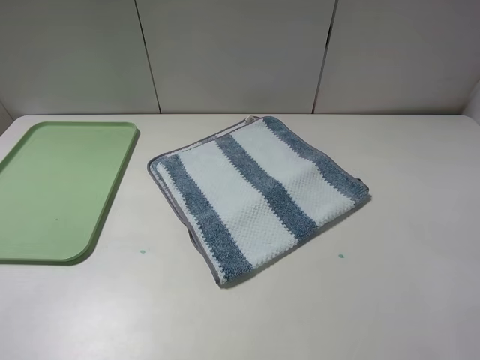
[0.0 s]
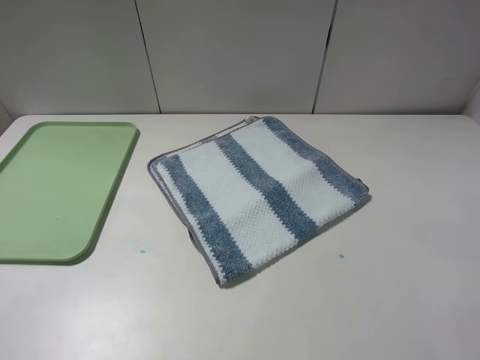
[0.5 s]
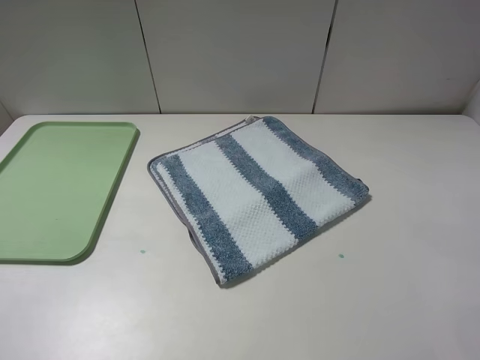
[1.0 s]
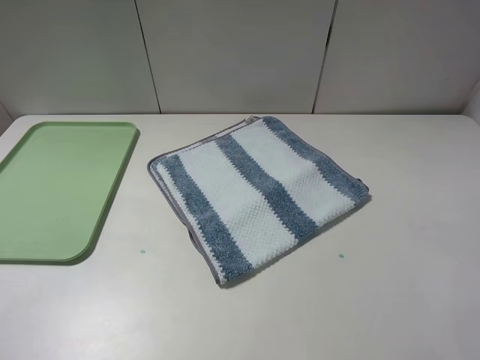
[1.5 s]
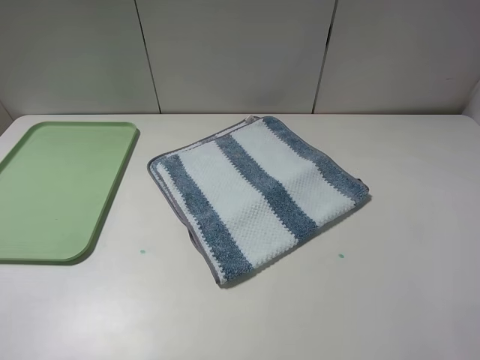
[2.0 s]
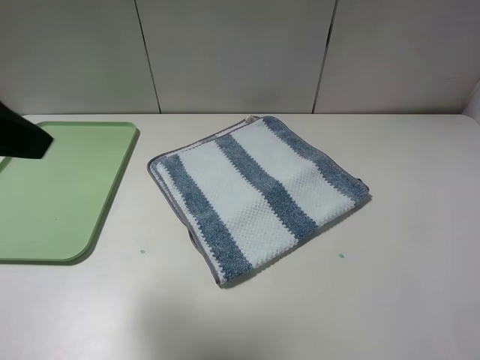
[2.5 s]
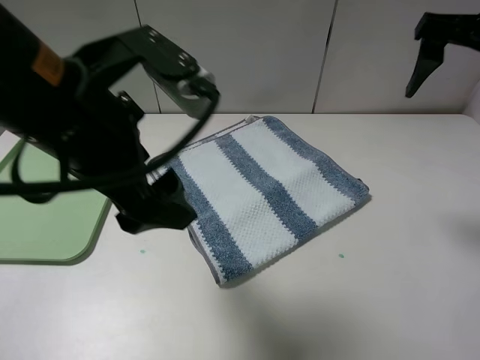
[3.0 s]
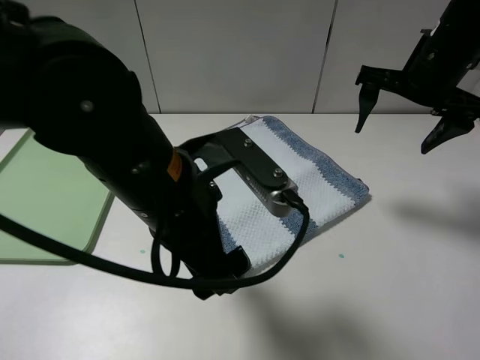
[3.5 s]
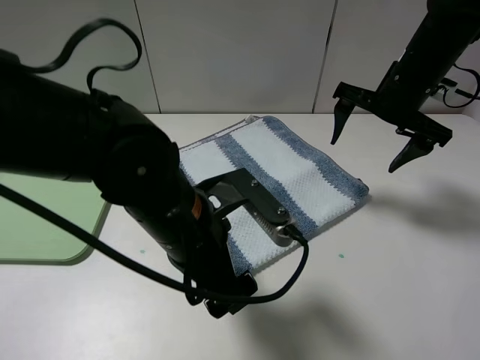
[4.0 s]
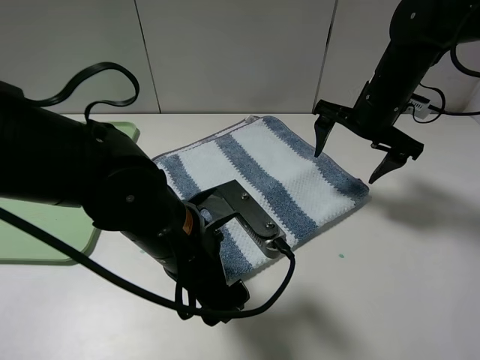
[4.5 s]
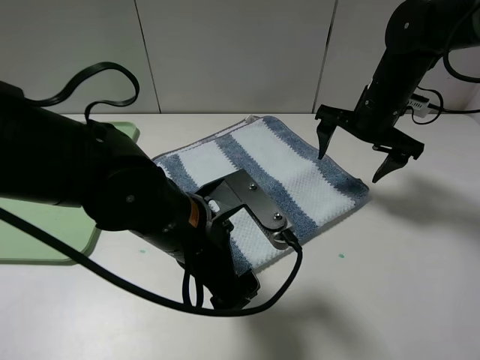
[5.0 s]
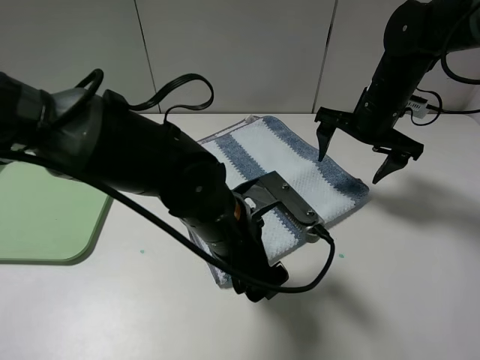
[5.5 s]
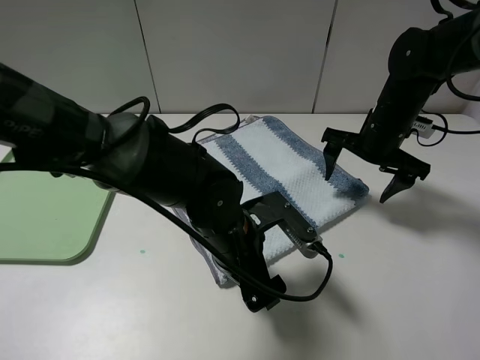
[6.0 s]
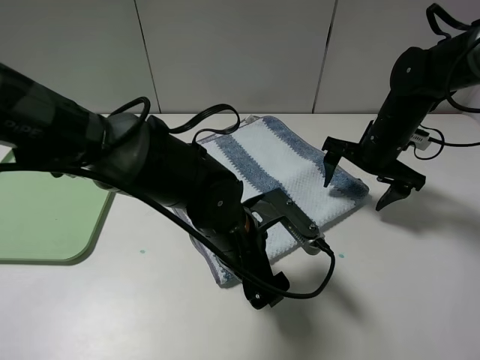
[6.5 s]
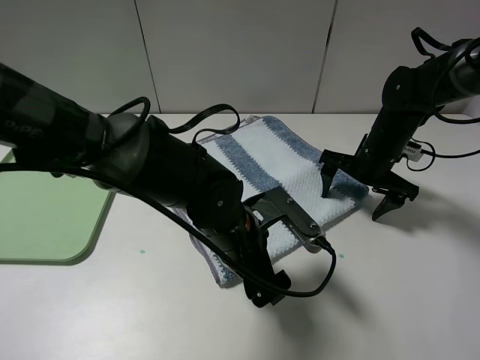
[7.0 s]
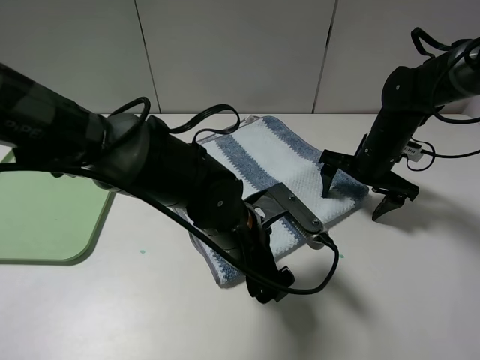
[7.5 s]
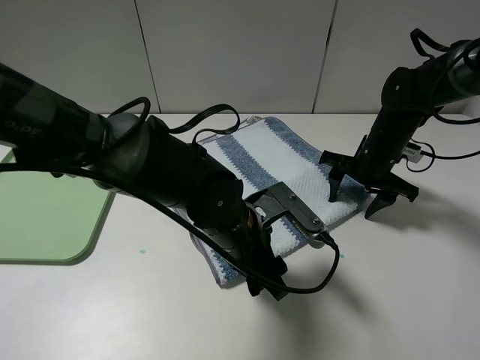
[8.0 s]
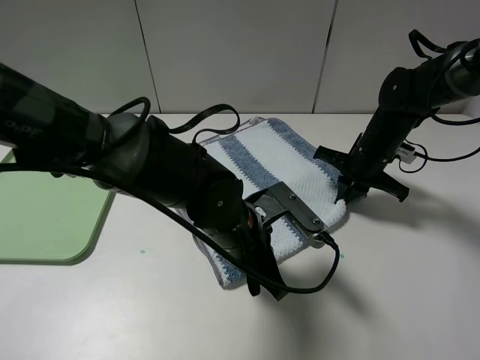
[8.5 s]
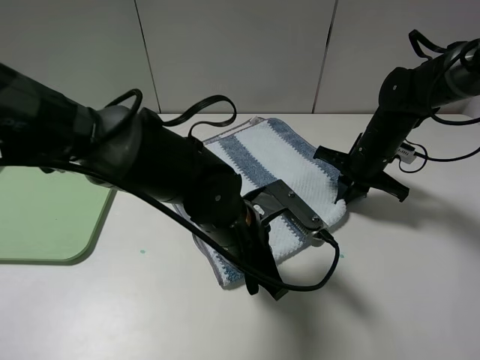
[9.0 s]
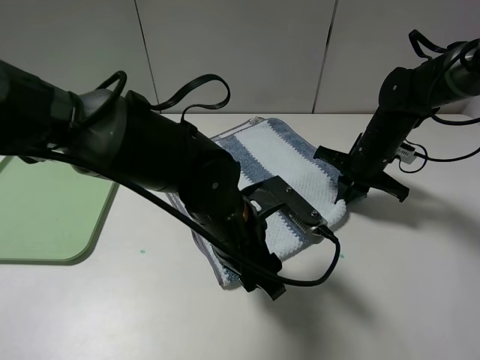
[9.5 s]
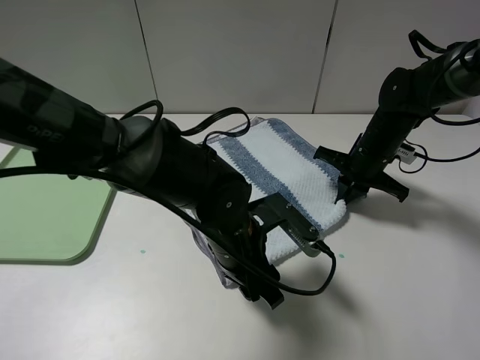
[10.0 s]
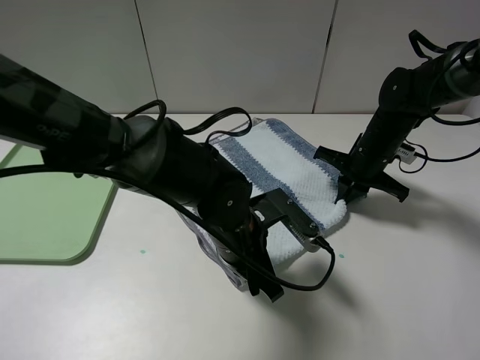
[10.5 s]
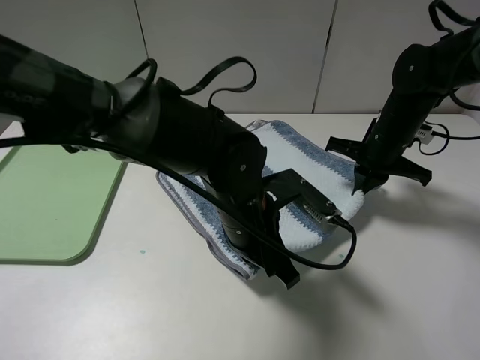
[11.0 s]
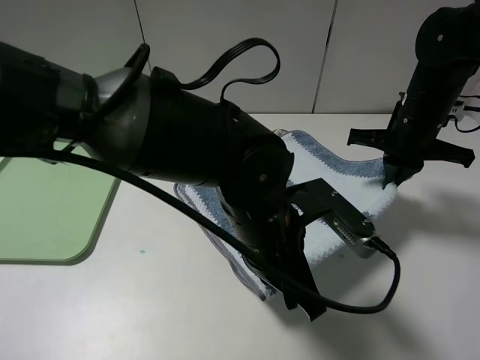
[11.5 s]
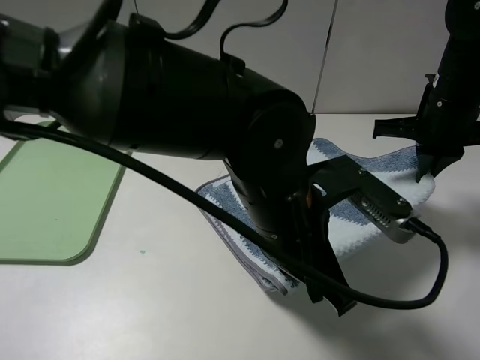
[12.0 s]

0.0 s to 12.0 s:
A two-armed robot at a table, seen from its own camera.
Step, 0.0 to 9.5 s: Grasp the blue white towel with the right gripper.
2.0 to 4.0 s: The left gripper moves to the right, downward and forward, approximately 35 cm; the right gripper goes some 30 cm forward and downward.
4.0 to 6.0 s: The two grippers go roughly 5 cm downward.
6.0 to 8.0 s: The left gripper closes up. The right gripper moves downward, roughly 5 cm, and closes.
8.0 to 10.0 s: The left gripper closes, then opens again; the right gripper closes up.
10.0 to 12.0 s: Both grippers move upward, roughly 10 cm. The left gripper closes its fingers.

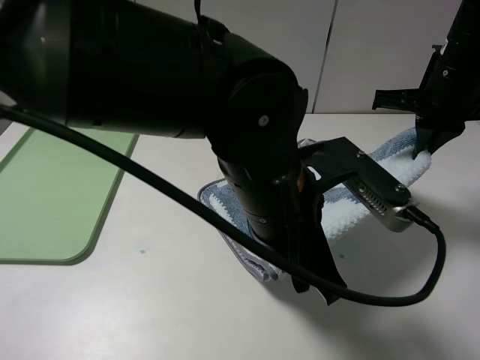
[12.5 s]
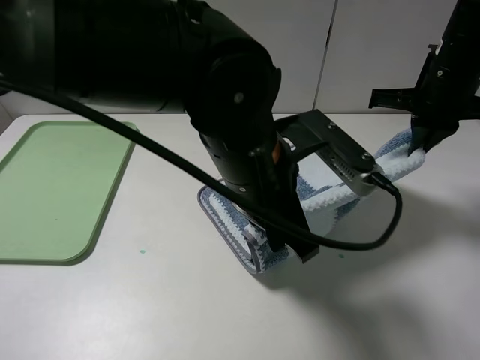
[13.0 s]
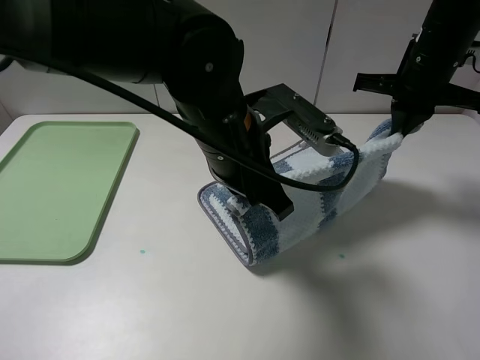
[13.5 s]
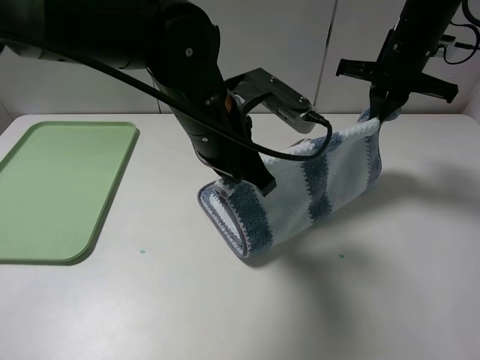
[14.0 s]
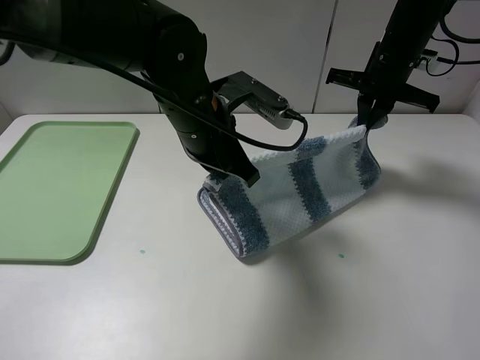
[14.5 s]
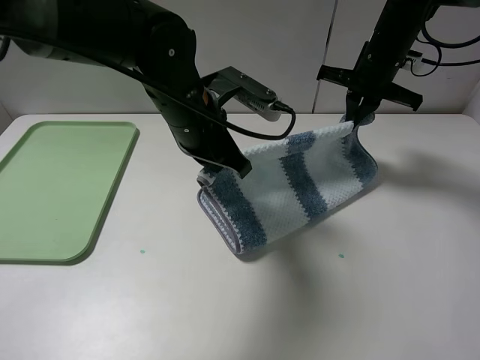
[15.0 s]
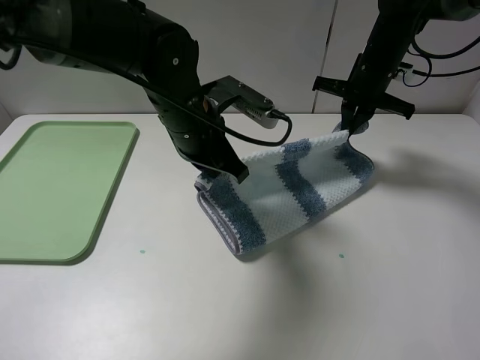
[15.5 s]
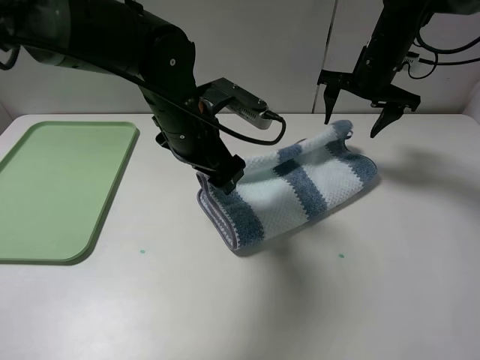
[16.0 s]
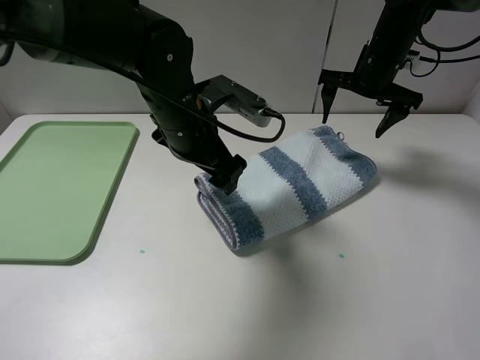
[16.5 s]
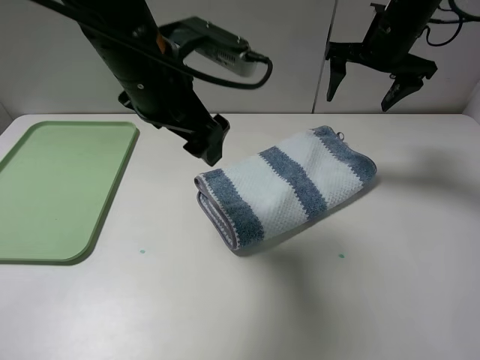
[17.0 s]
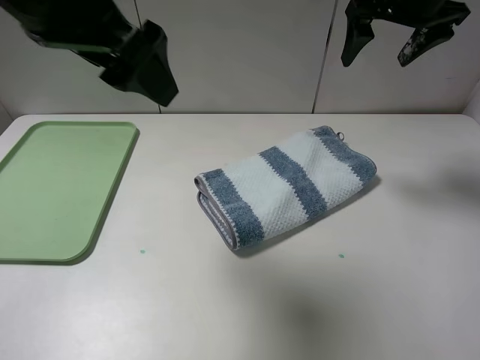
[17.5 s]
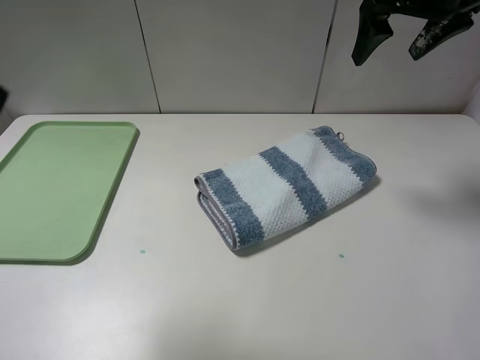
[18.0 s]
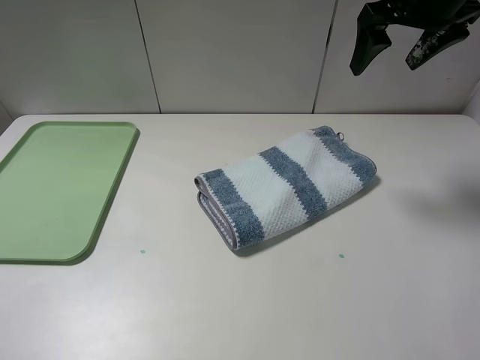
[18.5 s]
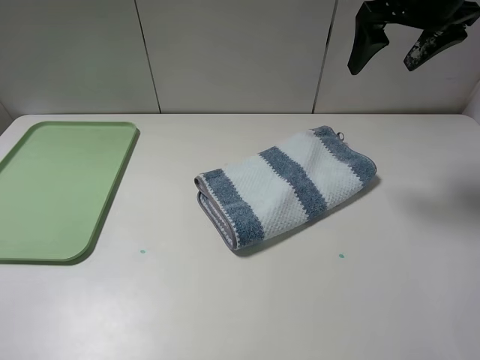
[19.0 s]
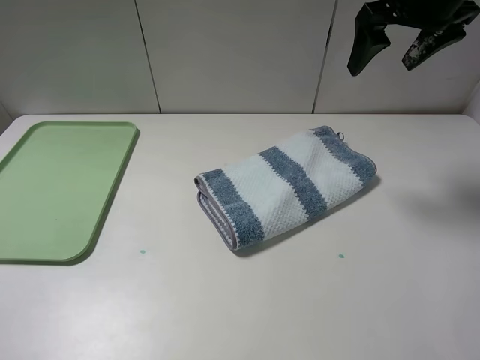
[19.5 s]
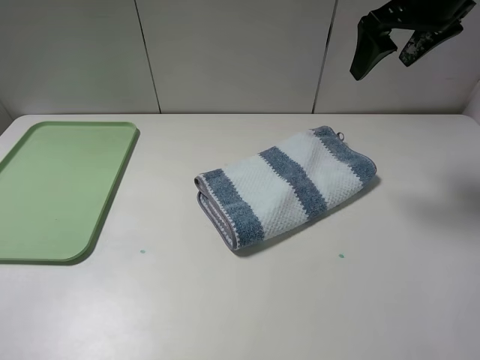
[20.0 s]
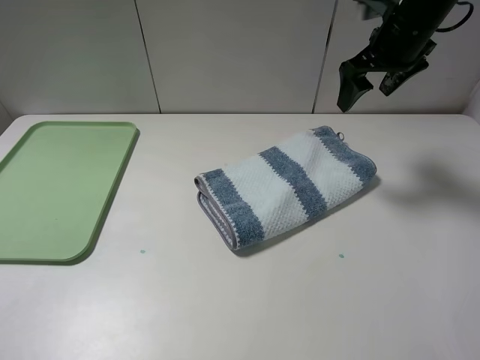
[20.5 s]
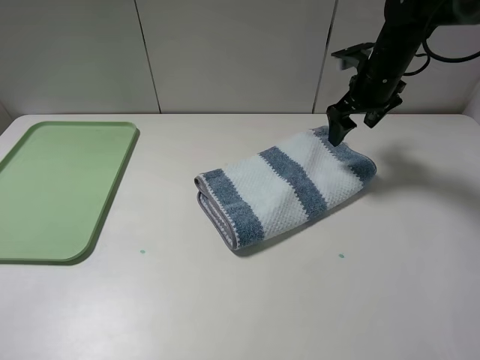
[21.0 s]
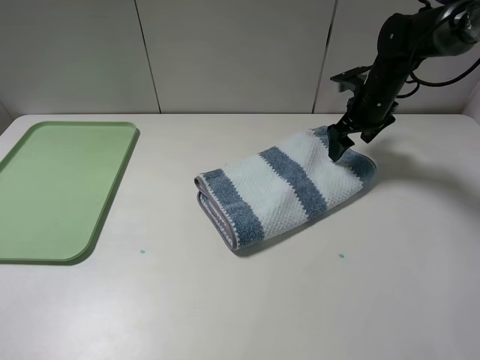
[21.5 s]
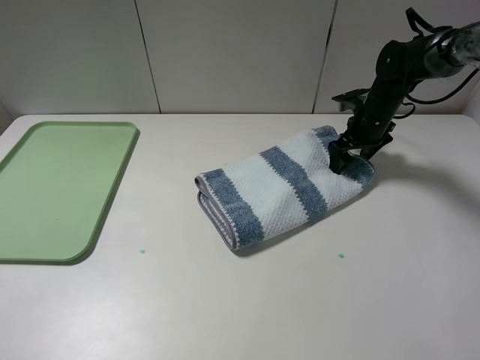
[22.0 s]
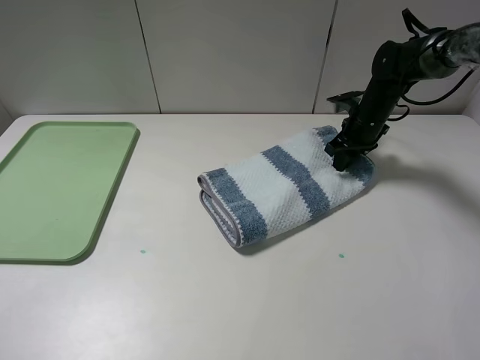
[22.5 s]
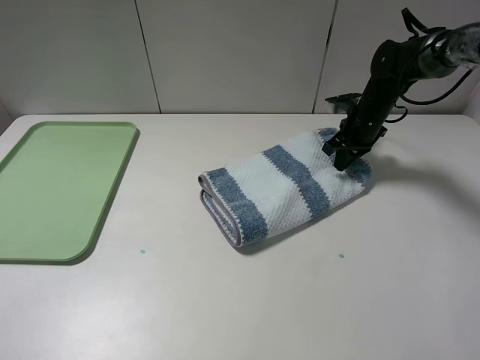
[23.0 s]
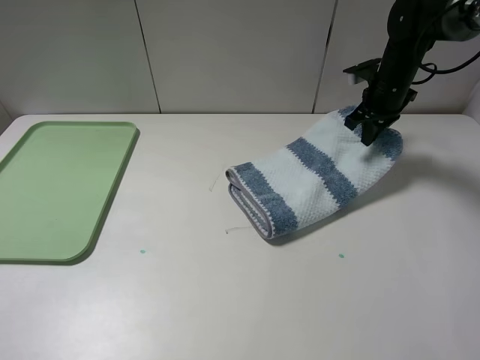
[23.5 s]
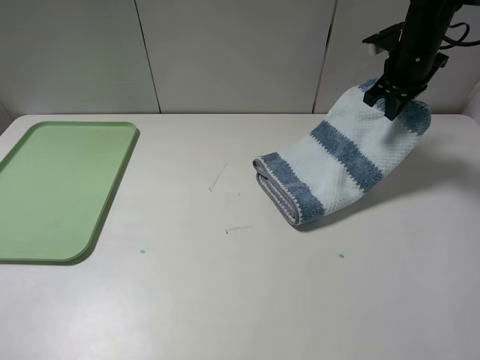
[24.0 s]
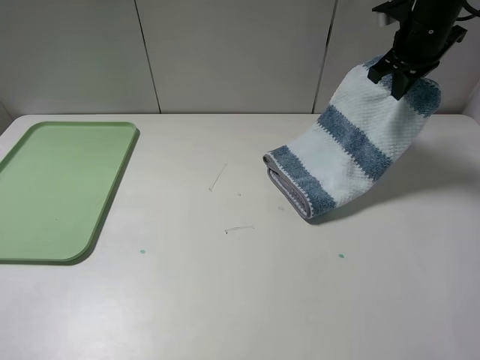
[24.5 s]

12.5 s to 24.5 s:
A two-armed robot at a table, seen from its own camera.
Step, 12.5 to 16.0 s: Fold the blue white towel upwards with the left gripper.
Step, 16.5 to 23.0 s: Grasp the blue white towel with the right gripper.
12.5 to 14.5 s: The right gripper travels forward by some 10 cm, while the left gripper travels forward and to the left by approximately 15 cm.
14.5 to 16.5 s: The right gripper opens up. Meanwhile the left gripper opens its fingers.
16.5 to 18.5 s: The left gripper travels backward, to the left and upward by some 40 cm; the right gripper moves upward and backward, some 15 cm.
18.5 to 20.5 s: The right gripper goes about 5 cm downward.
20.5 to 22.5 s: The right gripper is displaced downward by roughly 15 cm, and closes.
22.5 to 24.5 s: The right gripper heads upward, covering roughly 15 cm.

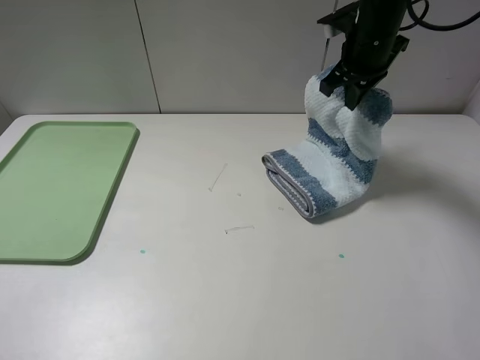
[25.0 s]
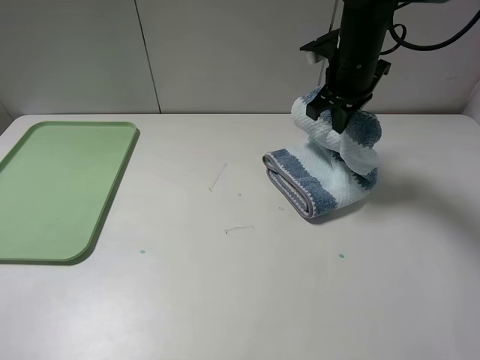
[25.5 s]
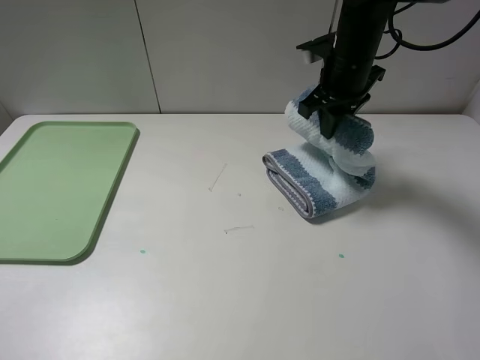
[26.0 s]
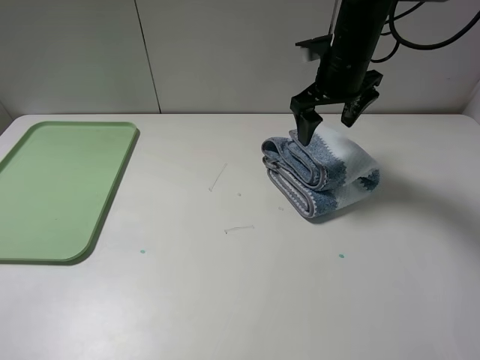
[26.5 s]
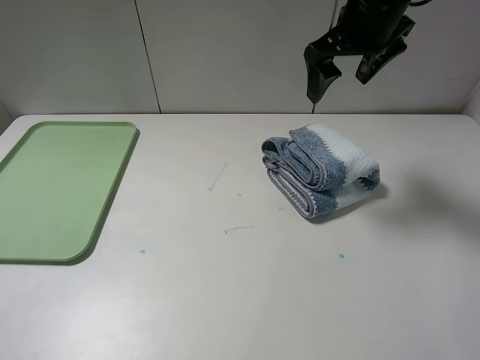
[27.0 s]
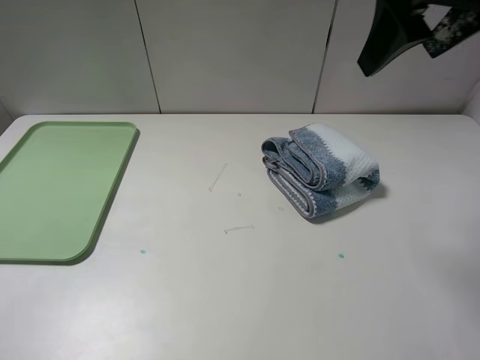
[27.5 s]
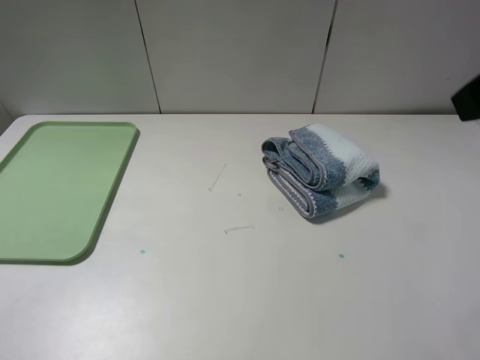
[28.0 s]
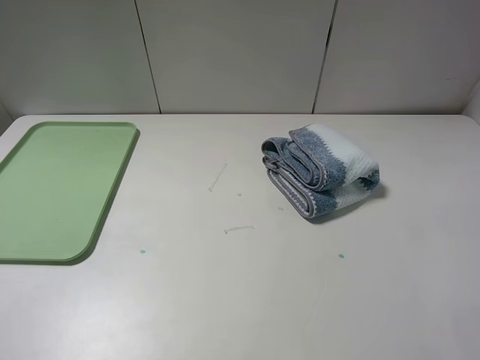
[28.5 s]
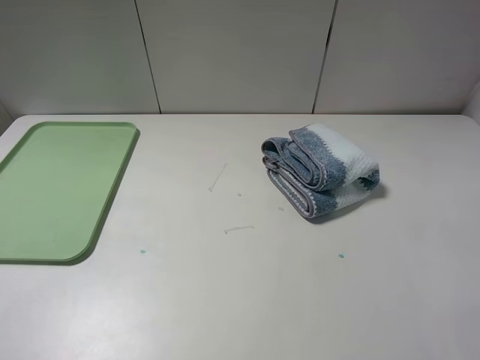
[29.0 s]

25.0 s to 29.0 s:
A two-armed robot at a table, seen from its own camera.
25.0 to 27.0 s: The right gripper heads upward and backward, covering roughly 10 cm, and opens.
27.0 to 29.0 s: The right gripper moves backward and to the right, about 40 cm.
